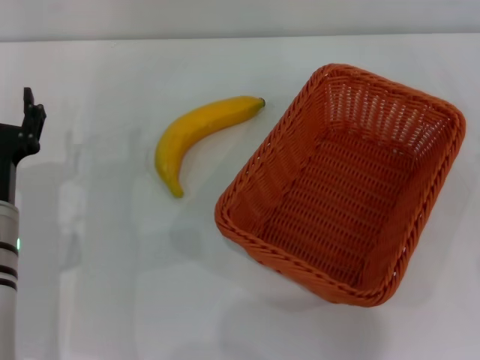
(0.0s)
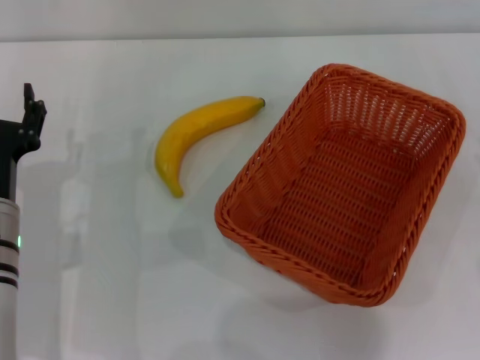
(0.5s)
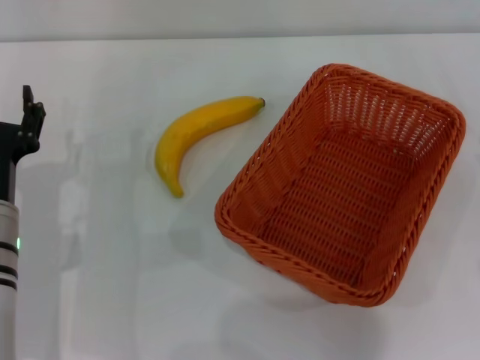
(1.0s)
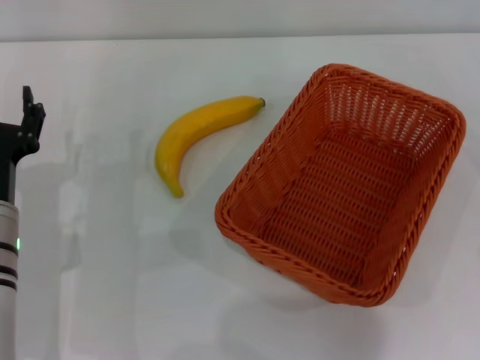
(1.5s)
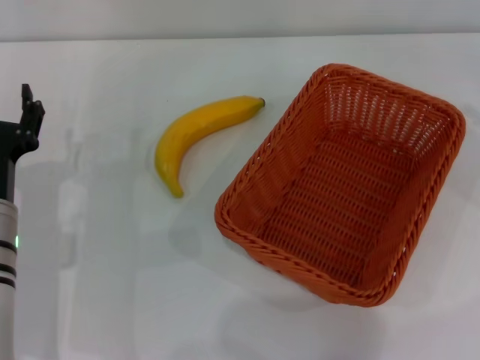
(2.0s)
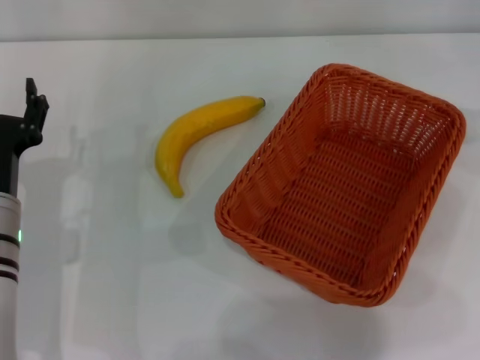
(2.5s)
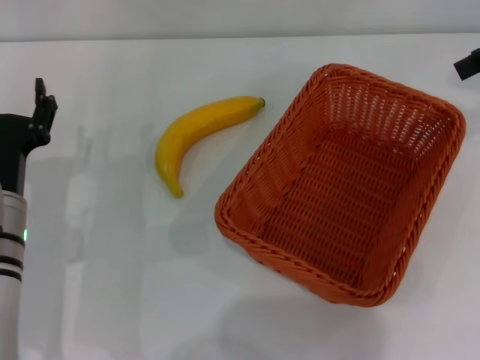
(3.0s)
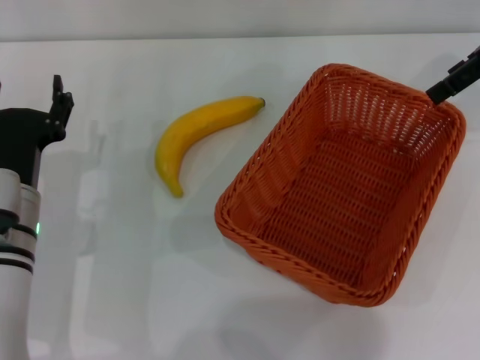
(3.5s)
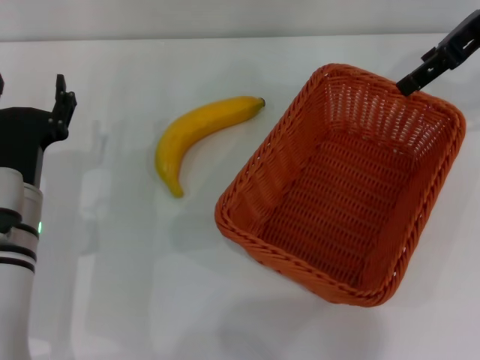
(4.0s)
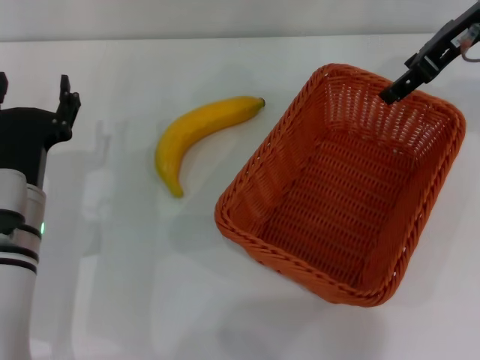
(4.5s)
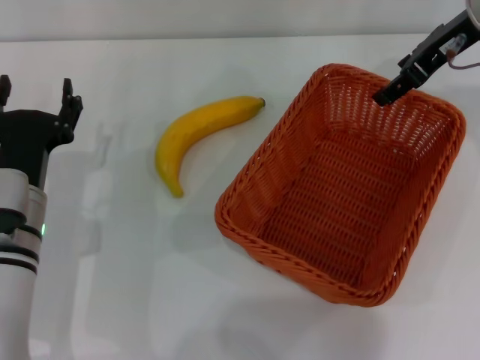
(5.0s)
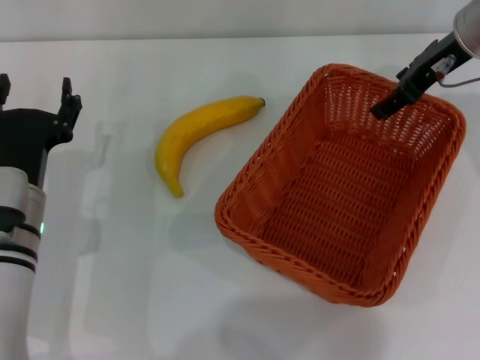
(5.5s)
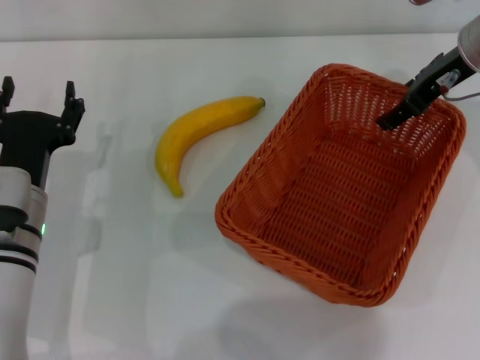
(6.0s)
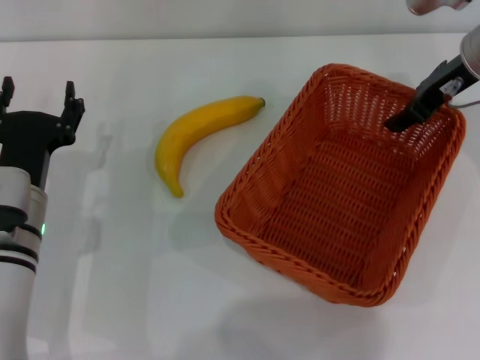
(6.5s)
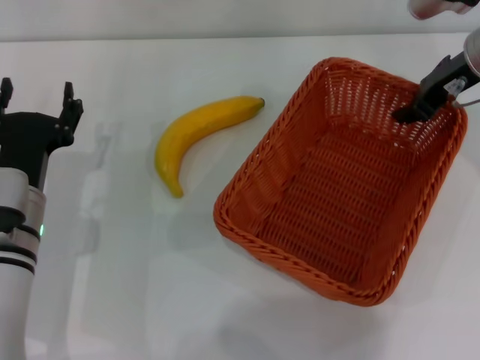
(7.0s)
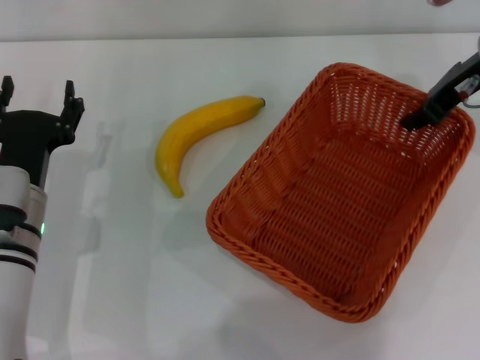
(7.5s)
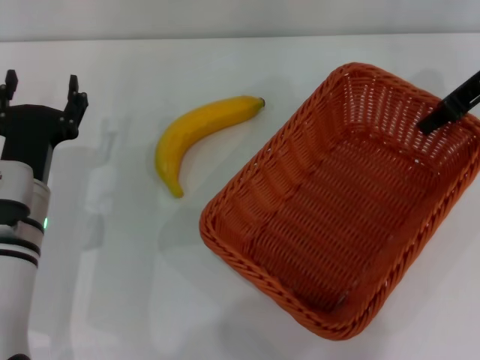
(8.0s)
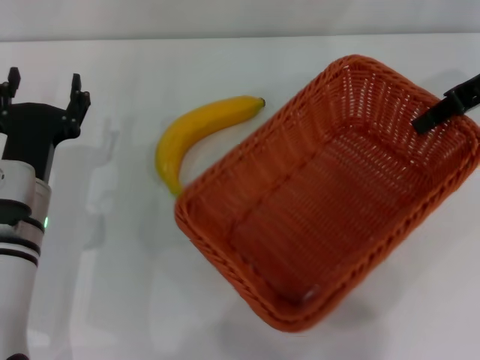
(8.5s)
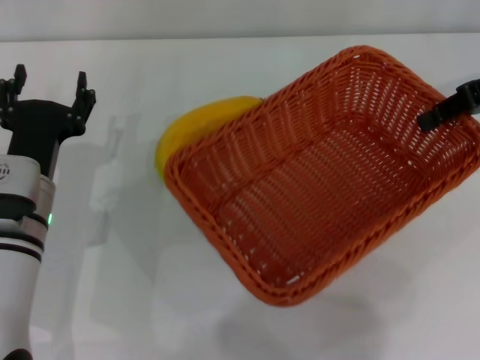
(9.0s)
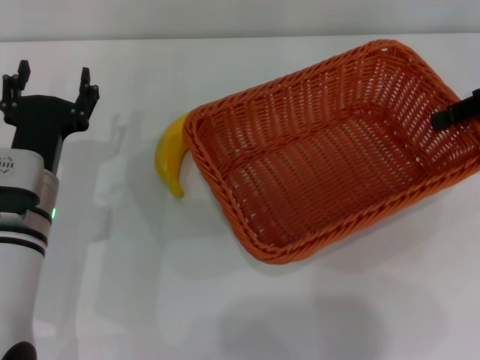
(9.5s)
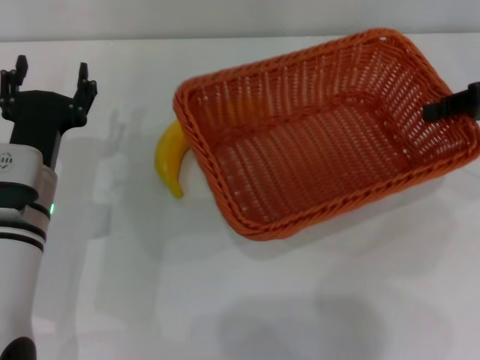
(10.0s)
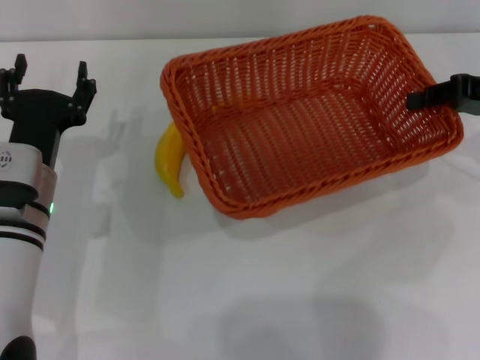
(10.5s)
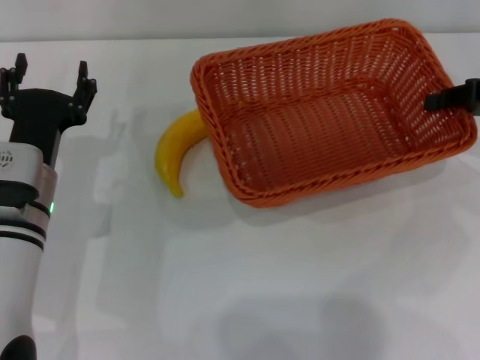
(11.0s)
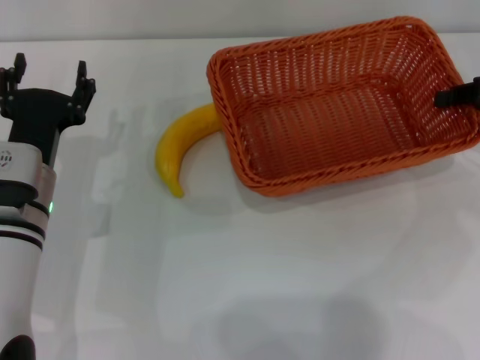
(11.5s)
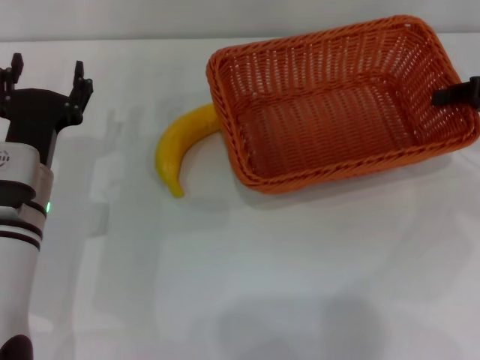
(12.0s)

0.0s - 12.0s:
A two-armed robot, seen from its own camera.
Step, 0.0s - 8.5s: Pick up the light basket with the right gripper.
2.0s - 4.0s: The right gripper goes approximately 25 cm to the left, forward and upward.
4.0s - 6.0s: The right gripper travels downward by about 10 cm.
6.0s - 8.0s: The right gripper closes.
8.0s - 10.0s: The right gripper heads to the right and downward, covering some 10 cm.
10.0s - 12.0s: The grippers move only a little.

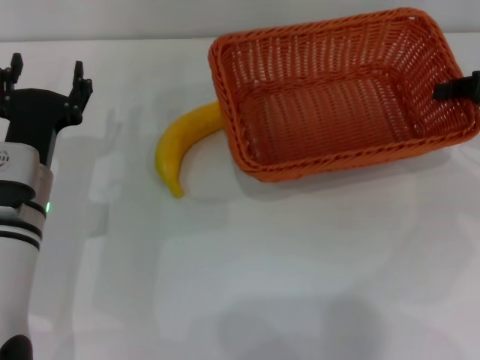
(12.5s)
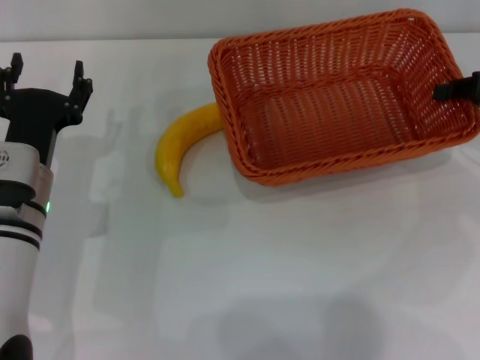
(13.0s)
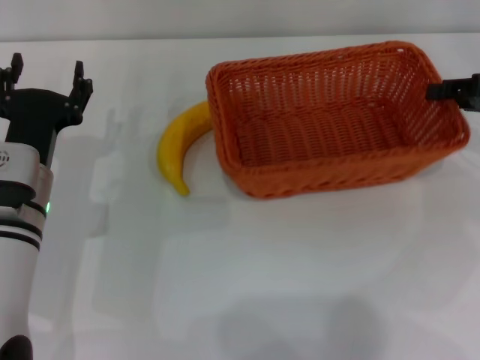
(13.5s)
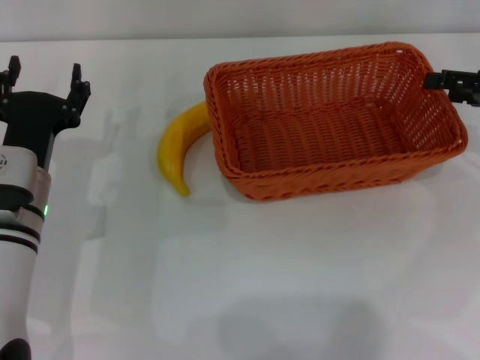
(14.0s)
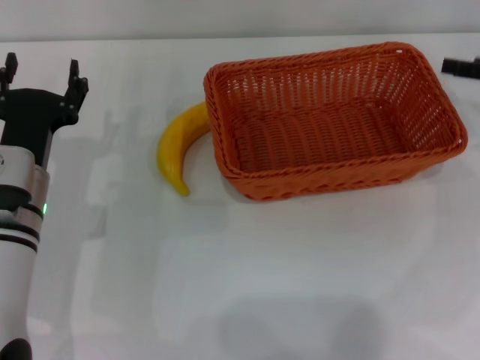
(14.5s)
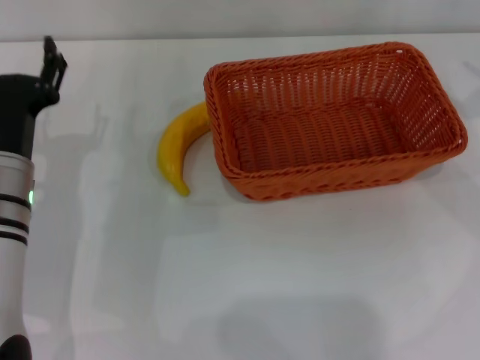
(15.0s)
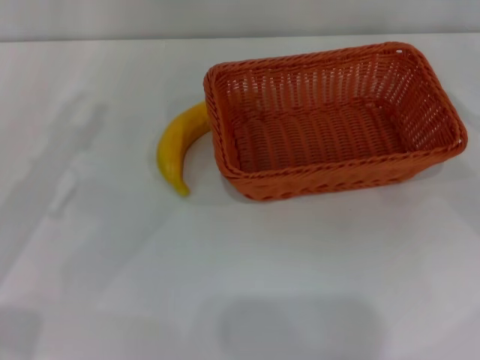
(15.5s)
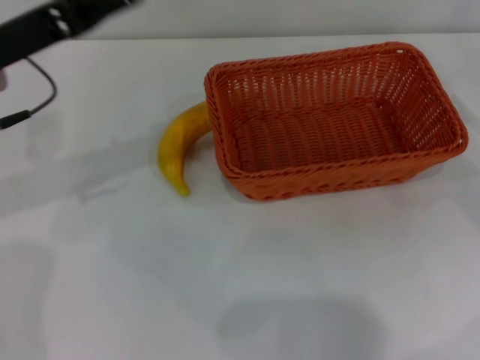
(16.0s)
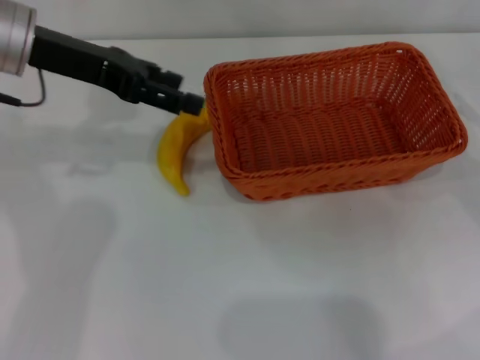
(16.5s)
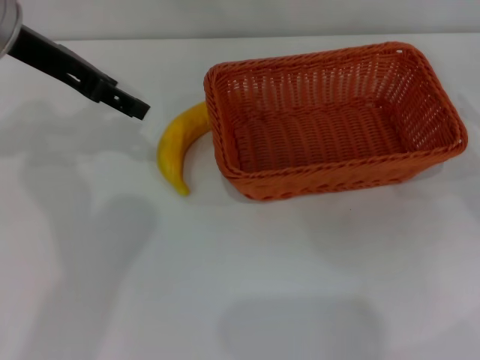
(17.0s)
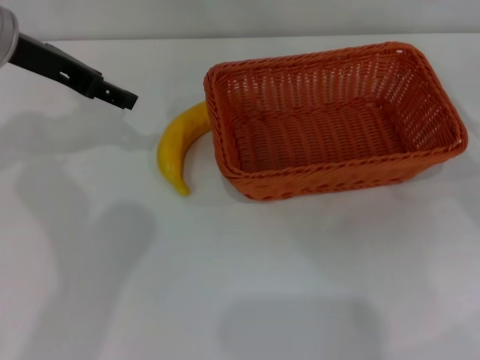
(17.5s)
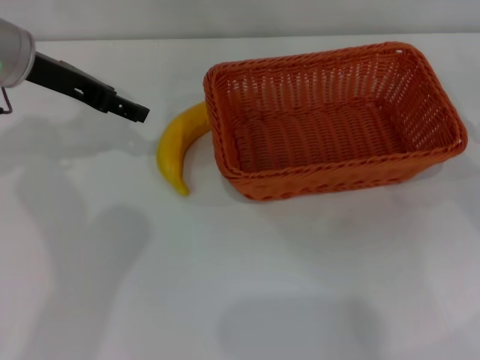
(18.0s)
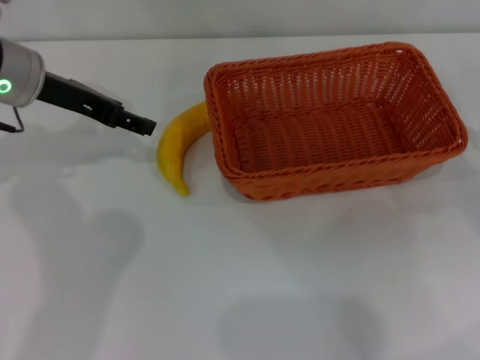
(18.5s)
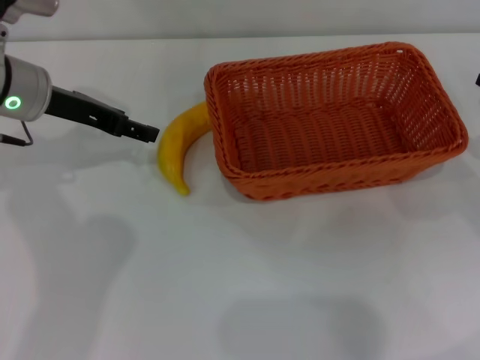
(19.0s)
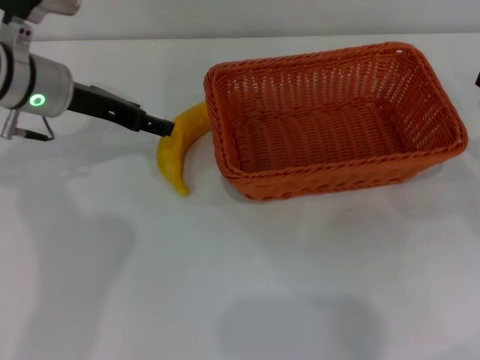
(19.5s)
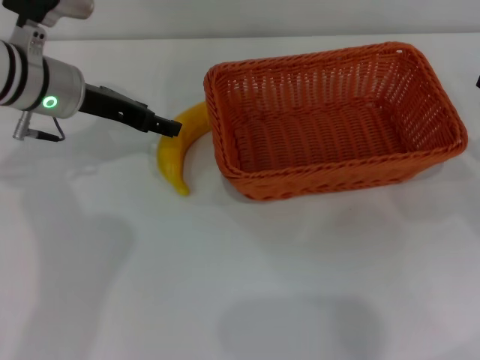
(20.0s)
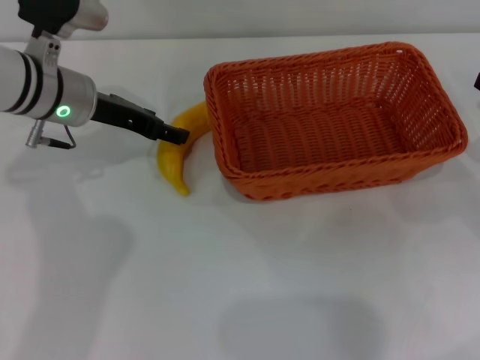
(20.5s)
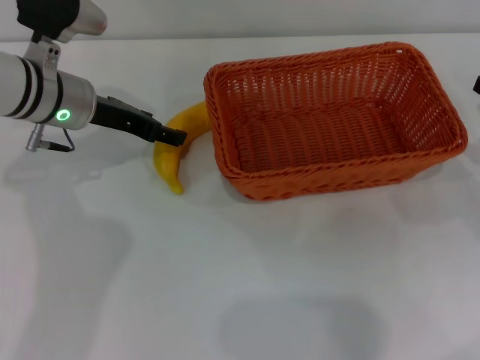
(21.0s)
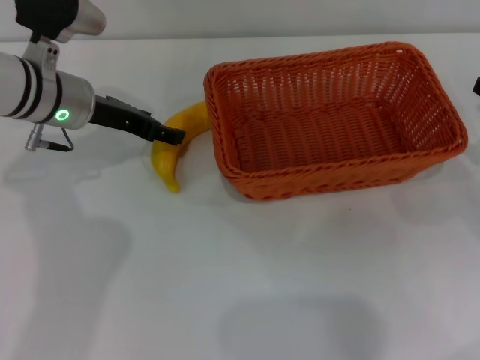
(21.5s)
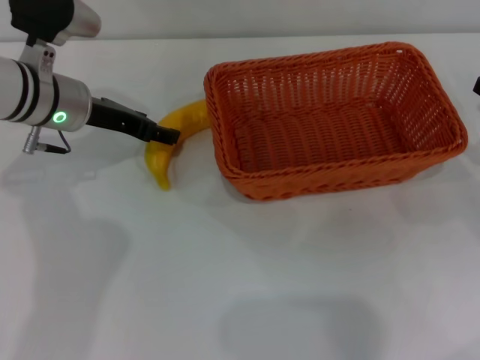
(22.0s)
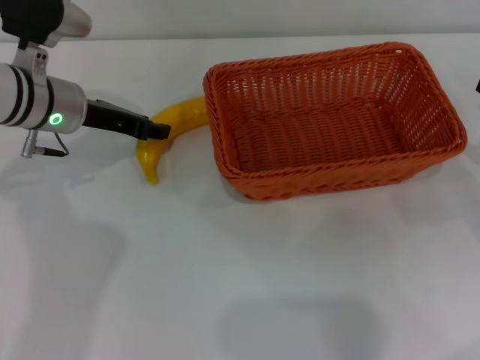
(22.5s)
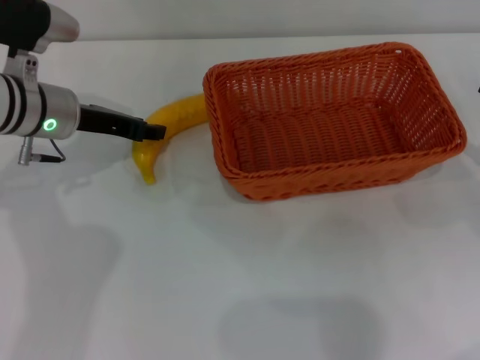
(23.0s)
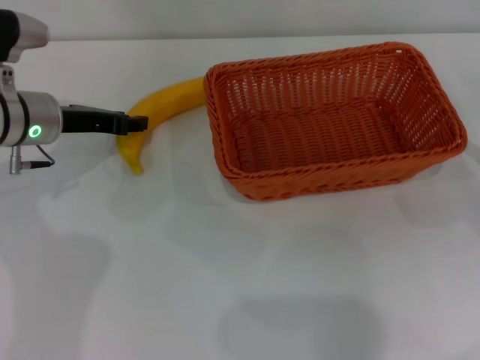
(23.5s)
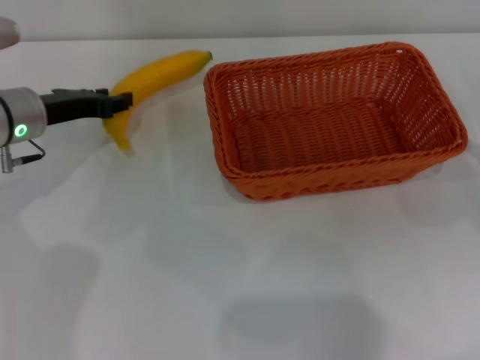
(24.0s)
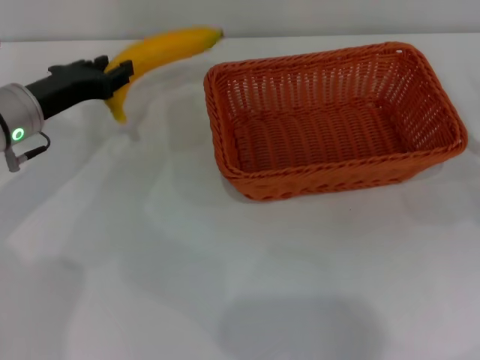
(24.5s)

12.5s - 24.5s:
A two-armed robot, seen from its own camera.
Step, 14.5s - 24.0s: Pick up the banana with the left gripper.
12.5s - 14.5s: The right gripper opens its fingers.
14.5s - 16.5s: The right gripper ends up roughly 5 cm from where it was; the left gripper travels upward and forward by about 20 cm.
18.5s - 20.5s: The left gripper moves about 5 cm.
20.5s - 22.5s: The left gripper closes its fingers.
22.5s - 24.5s: The left gripper ends up about 5 cm from where it was.

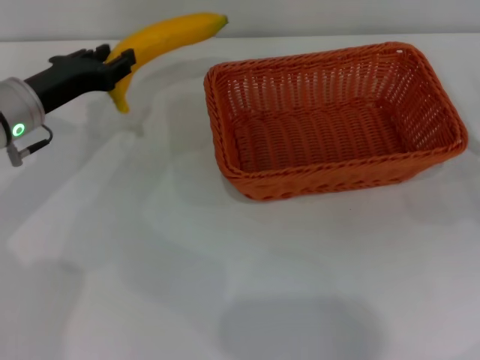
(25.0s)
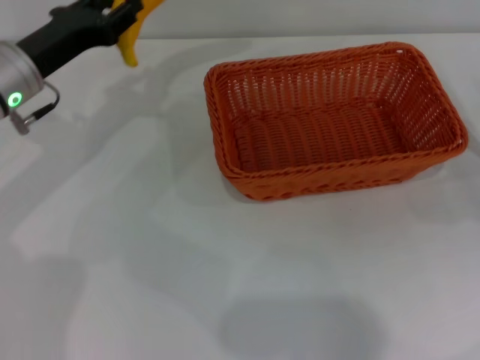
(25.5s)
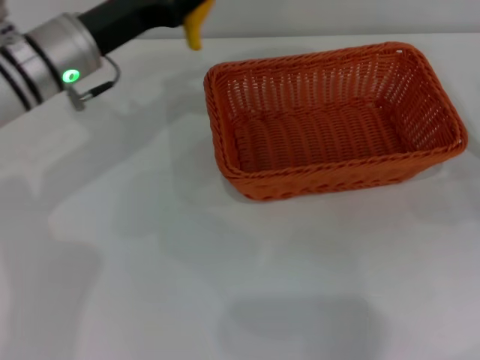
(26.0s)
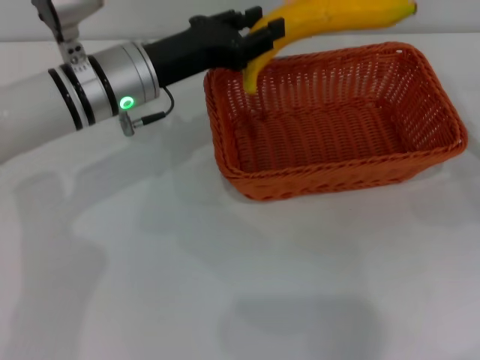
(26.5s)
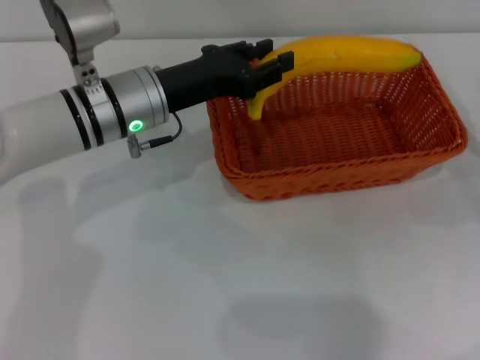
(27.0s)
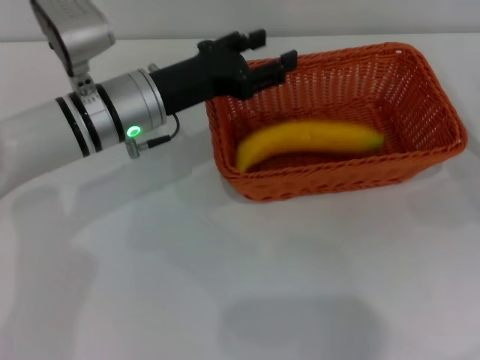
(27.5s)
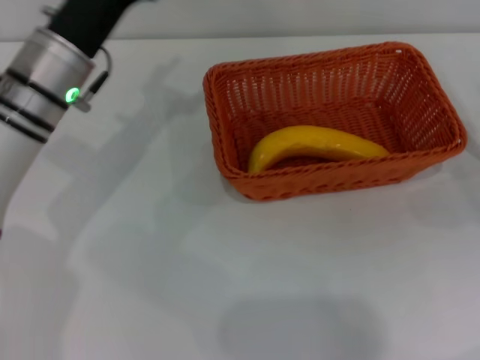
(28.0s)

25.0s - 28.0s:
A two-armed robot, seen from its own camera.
Step, 25.0s - 27.0s: Place the banana into the light basket with the left gripper.
25.0s - 26.5s: The left gripper heads to the right, covering roughly 10 cm.
26.5s - 28.0s: The left gripper opens up.
